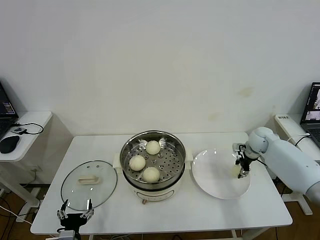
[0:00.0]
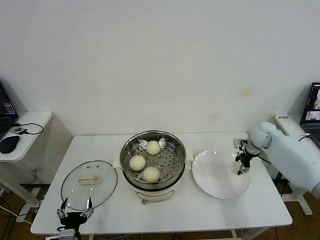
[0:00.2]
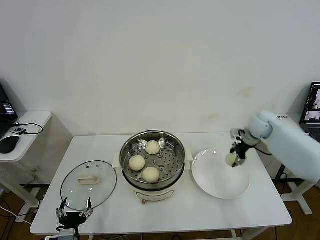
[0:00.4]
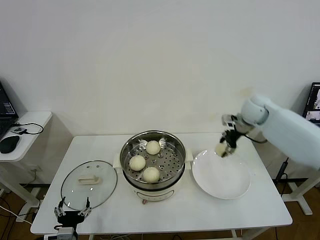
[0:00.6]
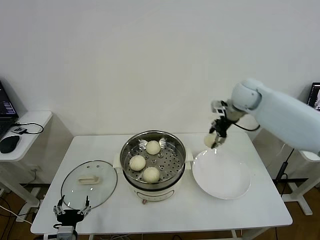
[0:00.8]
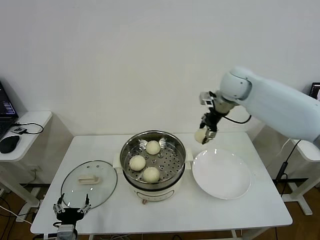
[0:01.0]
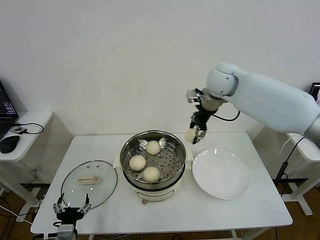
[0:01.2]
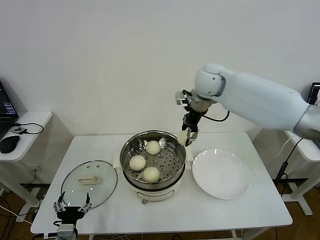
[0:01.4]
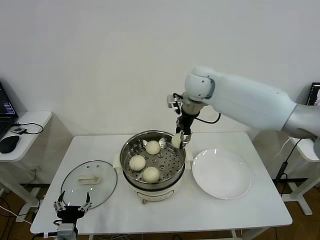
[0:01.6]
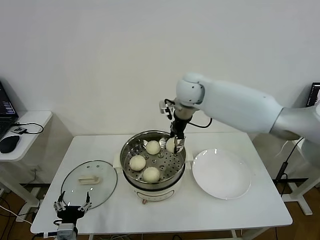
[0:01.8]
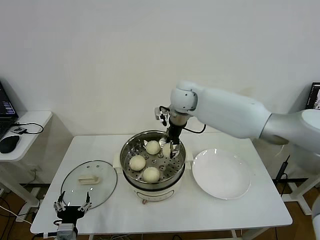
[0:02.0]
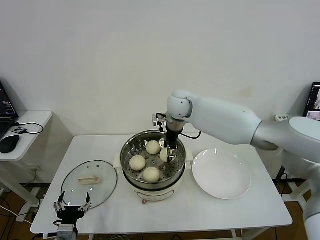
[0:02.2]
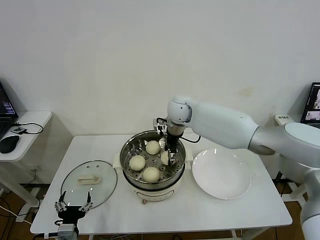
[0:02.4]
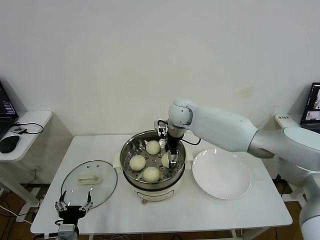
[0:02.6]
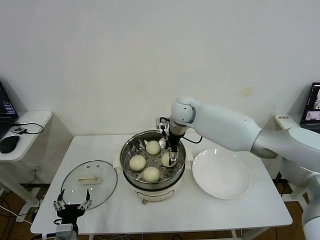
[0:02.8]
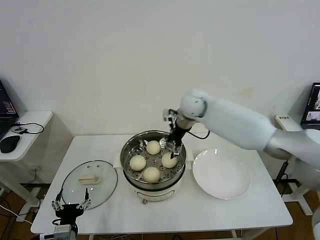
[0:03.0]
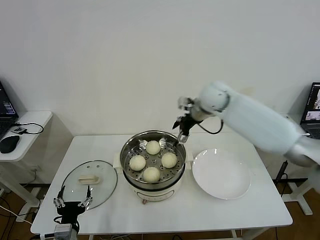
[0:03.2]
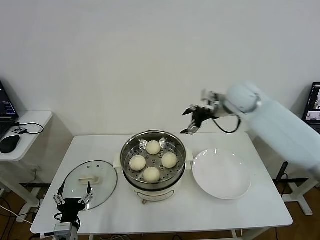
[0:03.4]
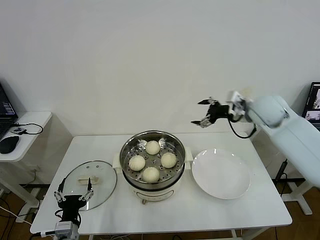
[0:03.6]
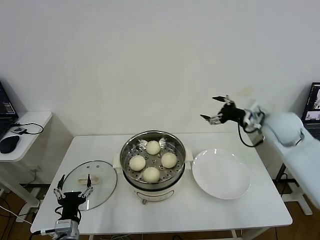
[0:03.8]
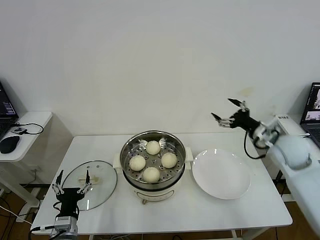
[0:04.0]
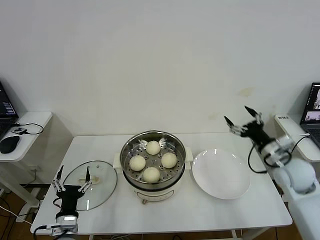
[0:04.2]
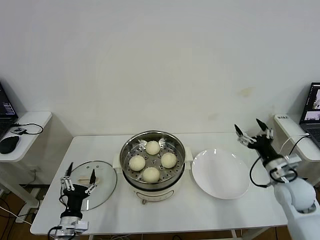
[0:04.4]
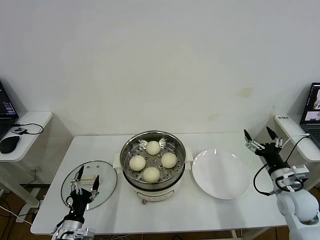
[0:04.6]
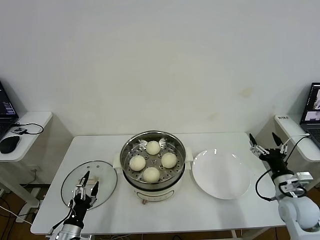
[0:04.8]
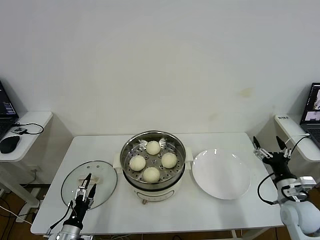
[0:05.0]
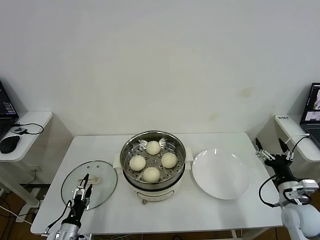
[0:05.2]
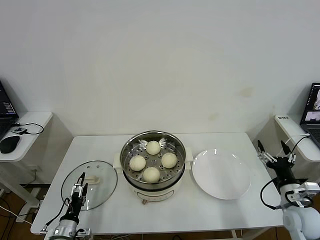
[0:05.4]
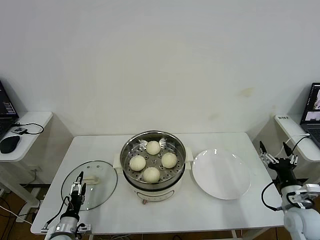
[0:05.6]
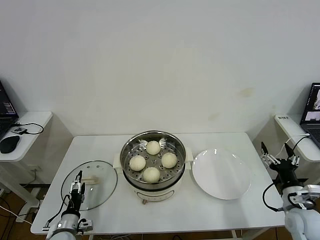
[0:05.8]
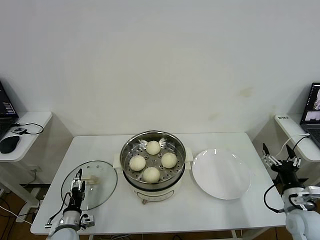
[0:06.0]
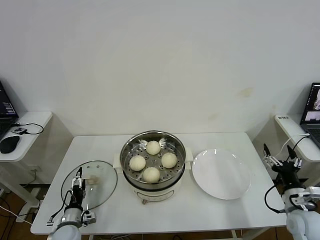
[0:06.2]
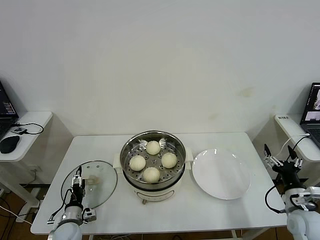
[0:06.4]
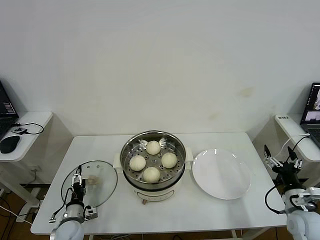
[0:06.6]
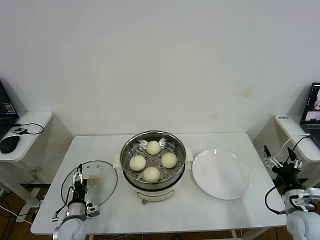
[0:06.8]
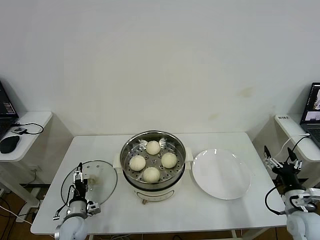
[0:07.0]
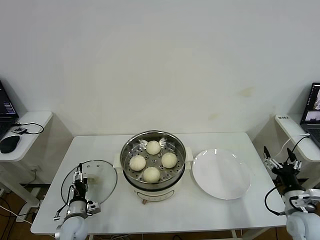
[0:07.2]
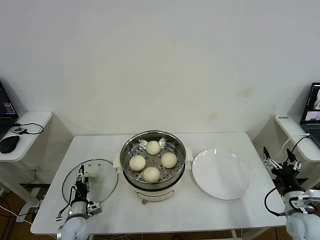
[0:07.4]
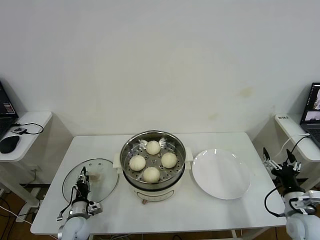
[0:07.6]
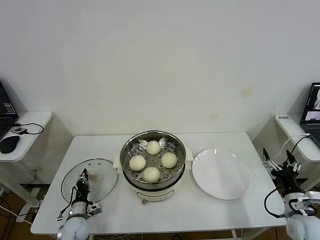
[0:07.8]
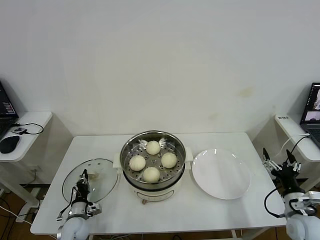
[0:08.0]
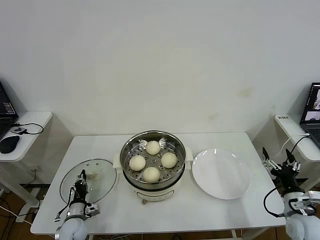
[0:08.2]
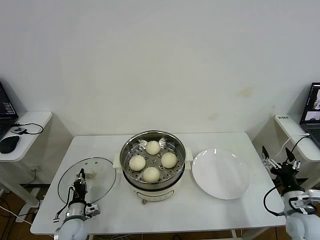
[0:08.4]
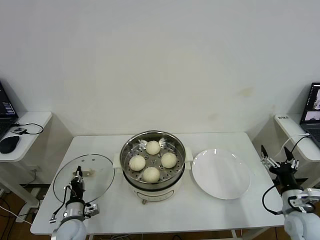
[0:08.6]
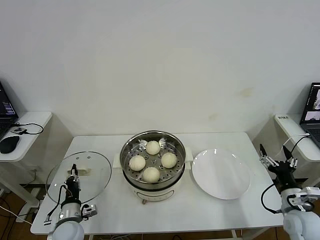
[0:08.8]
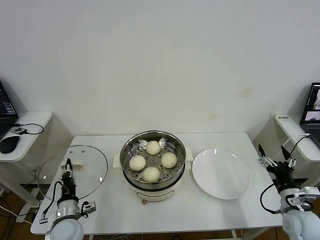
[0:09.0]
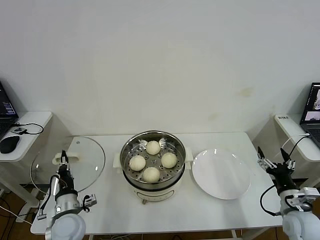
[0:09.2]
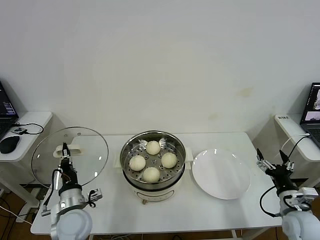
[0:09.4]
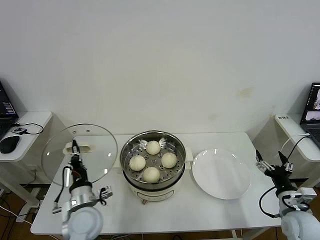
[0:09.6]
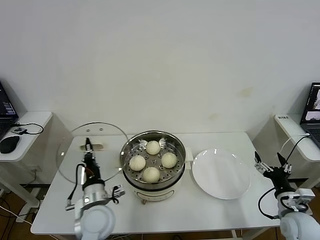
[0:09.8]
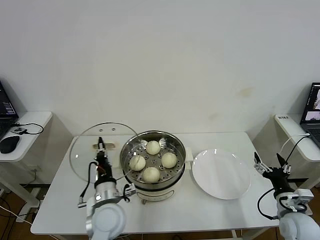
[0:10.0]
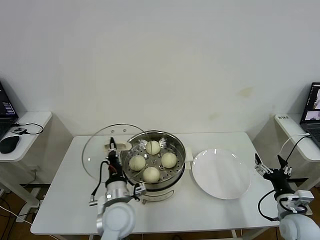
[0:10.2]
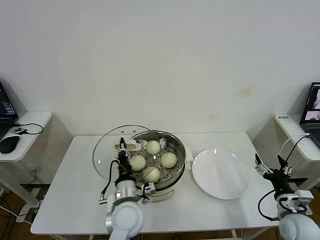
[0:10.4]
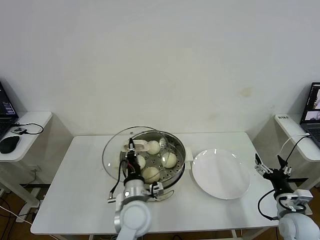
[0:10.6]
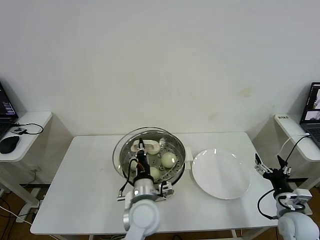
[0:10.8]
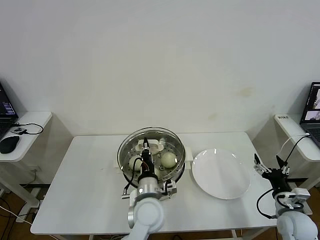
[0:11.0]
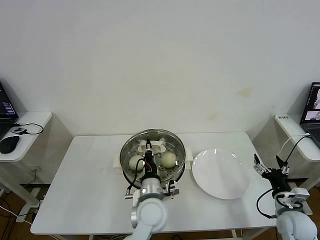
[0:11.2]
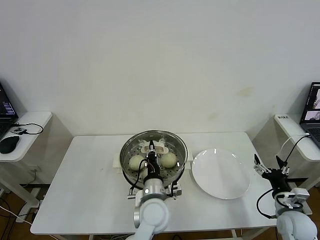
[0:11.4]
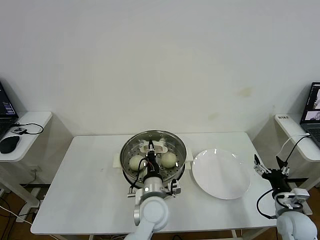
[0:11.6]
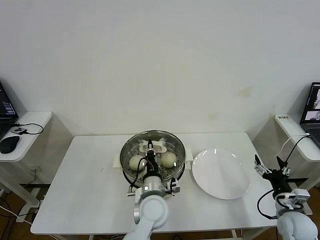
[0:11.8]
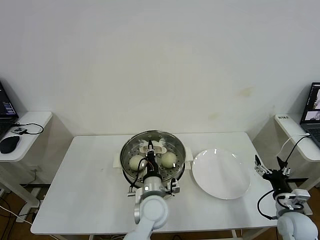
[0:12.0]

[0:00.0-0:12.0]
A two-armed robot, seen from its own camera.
Step, 0.2 to 2.8 s: Place the baozi on the steamer with right gripper.
Step, 3.0 to 8.0 s: Grasp the pot lid with left gripper.
0.0 to 1.6 s: The right gripper moves to the left and upward, roughly 35 cm.
1.6 to 3.0 s: The right gripper moves downward, about 5 cm, and opens its fingers.
3.0 to 4.4 s: The right gripper is displaced to the right, backward and downward by about 40 cm.
4.4 to 6.0 s: The right gripper heads backward, covering some 10 cm, while the left gripper travels downward by about 5 cm.
6.0 to 7.6 s: The left gripper moves approximately 5 cm, and closes its fingers.
7.6 to 9.0 s: The left gripper shifts approximately 10 cm upward, and closes.
9.0 to 10.4 s: The left gripper moves to the right and upward, about 20 cm.
10.4 to 12.0 s: The left gripper heads to the right, covering approximately 10 cm.

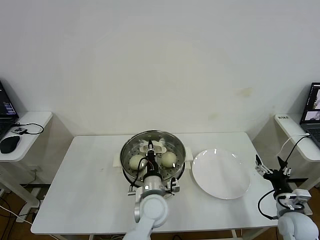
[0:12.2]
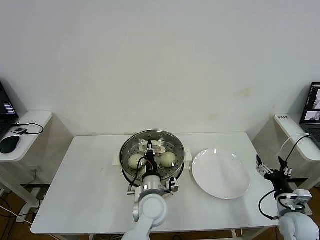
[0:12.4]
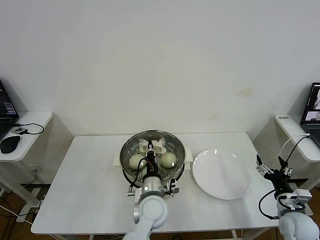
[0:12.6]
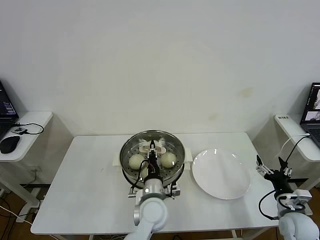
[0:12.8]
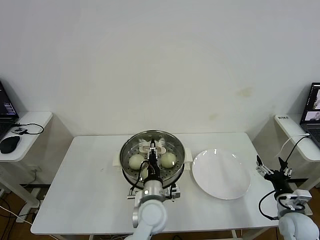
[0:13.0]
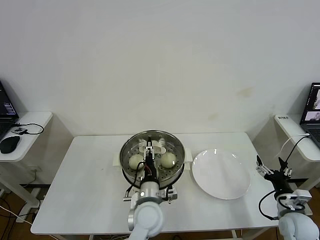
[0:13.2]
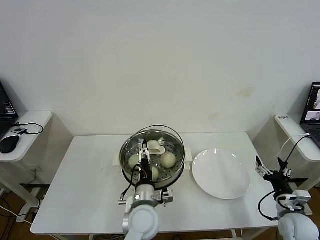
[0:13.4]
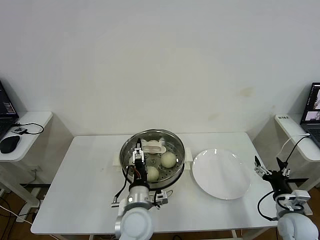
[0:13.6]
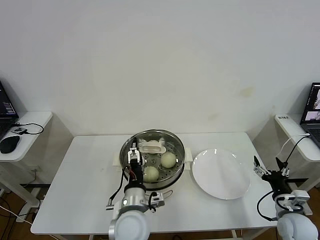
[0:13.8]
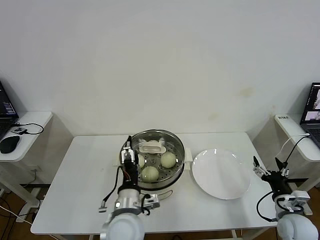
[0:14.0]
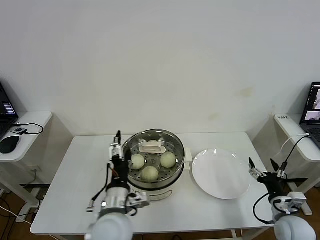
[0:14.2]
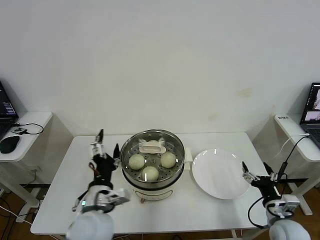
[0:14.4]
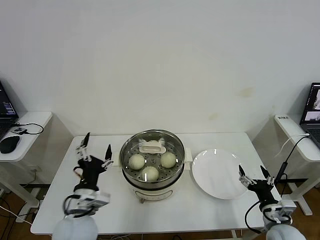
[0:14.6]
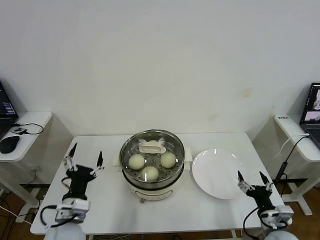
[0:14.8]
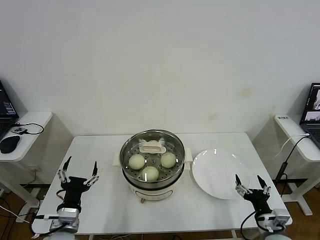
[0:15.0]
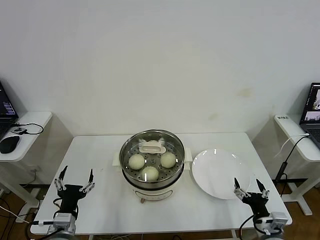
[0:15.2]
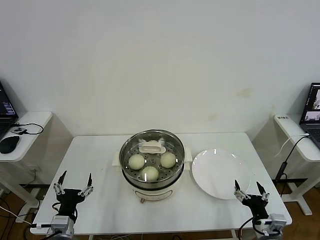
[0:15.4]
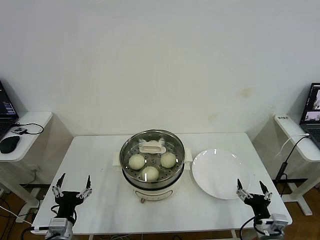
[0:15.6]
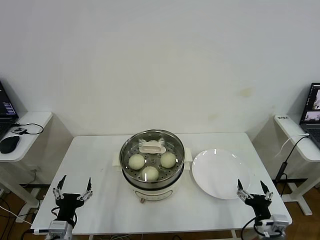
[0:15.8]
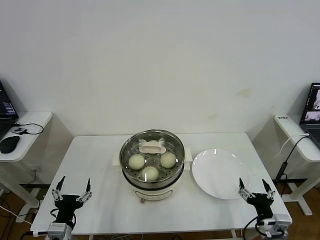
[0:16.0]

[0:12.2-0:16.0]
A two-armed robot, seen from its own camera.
12.2 to 13.4 s: The left gripper opens.
13.4 to 14.8 s: The right gripper moves to the left, roughly 5 cm, while the left gripper is displaced to the left by roughly 20 cm.
14.8 to 16.0 s: The left gripper is displaced downward, to the left and backward by roughly 10 cm.

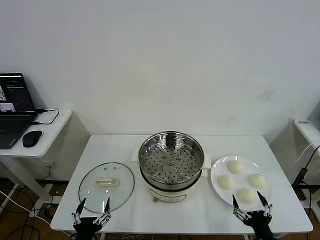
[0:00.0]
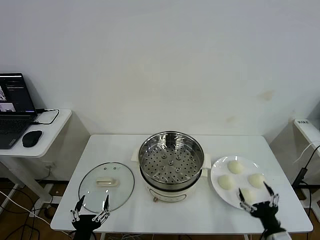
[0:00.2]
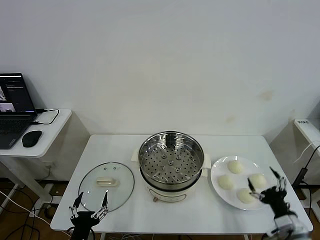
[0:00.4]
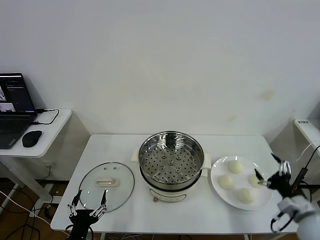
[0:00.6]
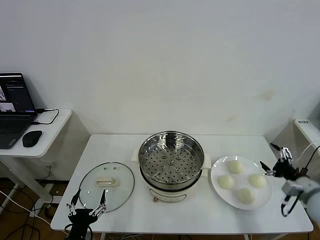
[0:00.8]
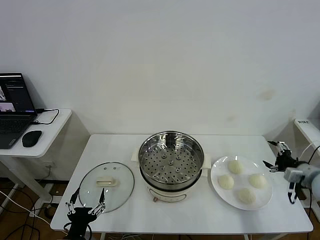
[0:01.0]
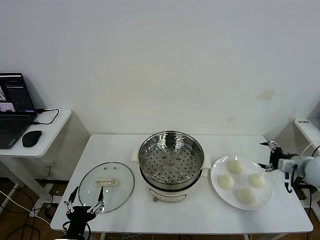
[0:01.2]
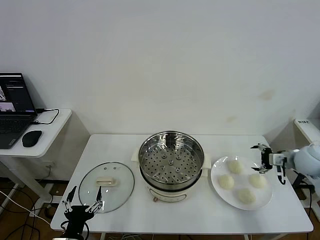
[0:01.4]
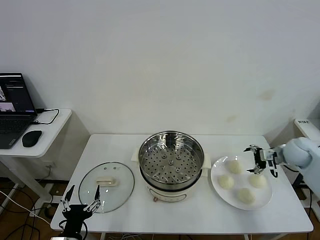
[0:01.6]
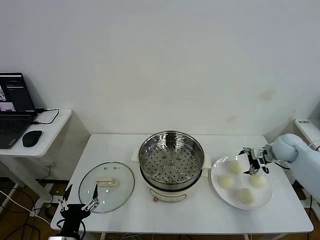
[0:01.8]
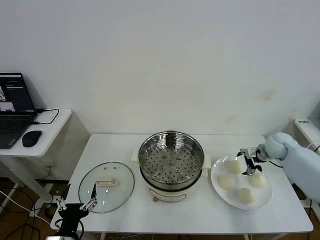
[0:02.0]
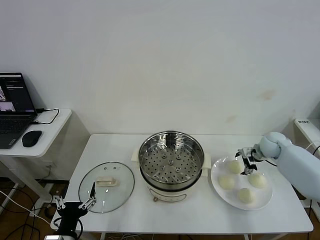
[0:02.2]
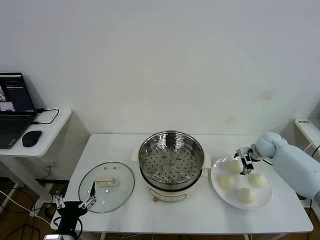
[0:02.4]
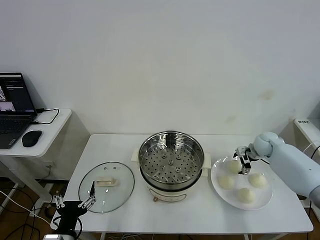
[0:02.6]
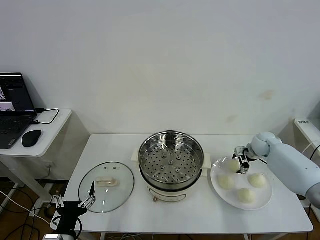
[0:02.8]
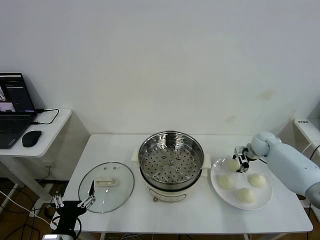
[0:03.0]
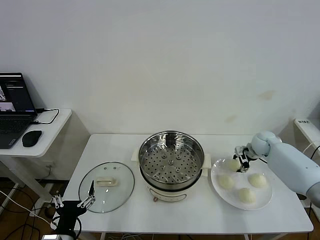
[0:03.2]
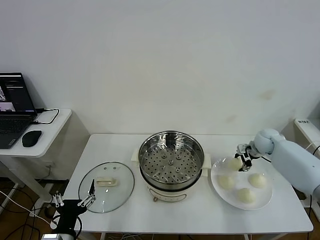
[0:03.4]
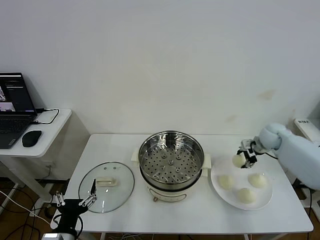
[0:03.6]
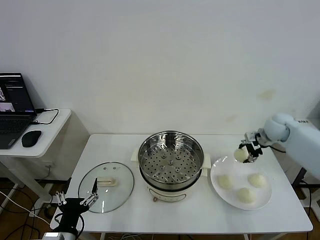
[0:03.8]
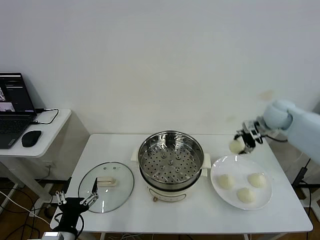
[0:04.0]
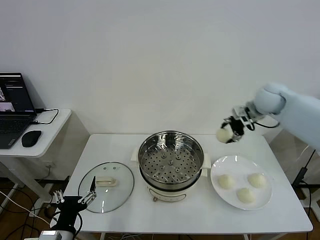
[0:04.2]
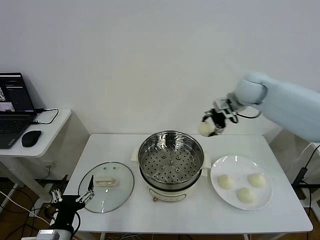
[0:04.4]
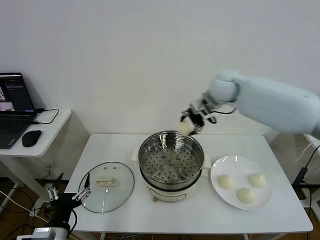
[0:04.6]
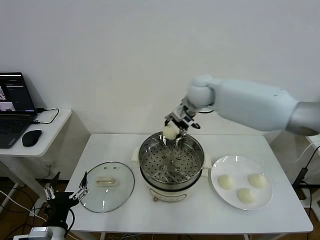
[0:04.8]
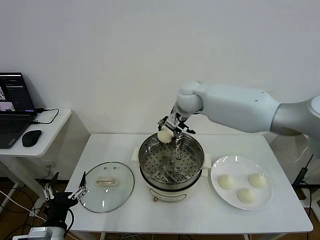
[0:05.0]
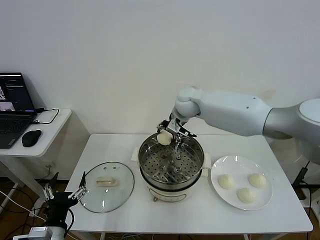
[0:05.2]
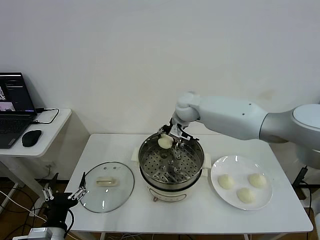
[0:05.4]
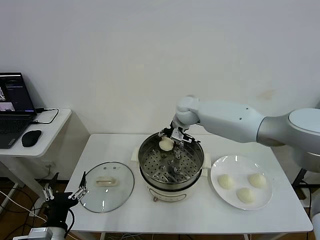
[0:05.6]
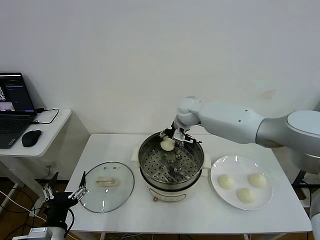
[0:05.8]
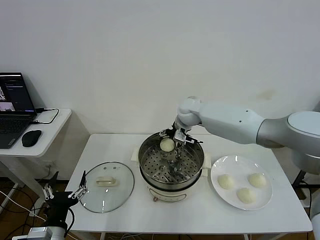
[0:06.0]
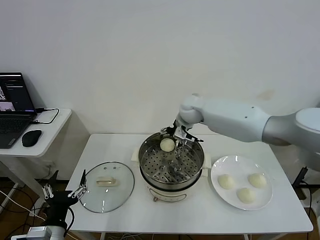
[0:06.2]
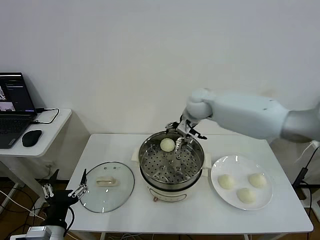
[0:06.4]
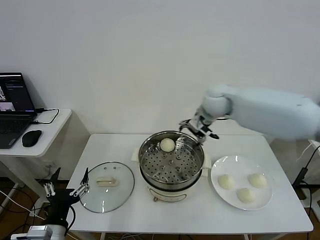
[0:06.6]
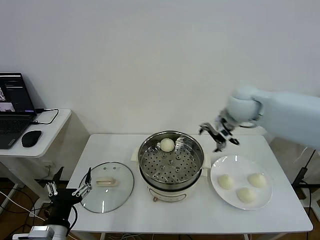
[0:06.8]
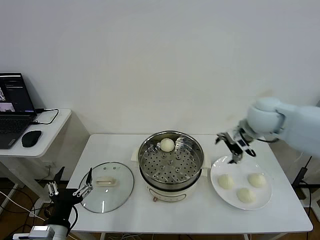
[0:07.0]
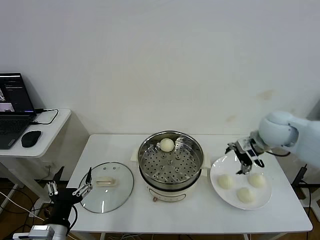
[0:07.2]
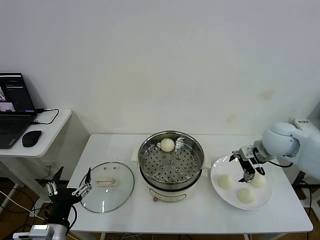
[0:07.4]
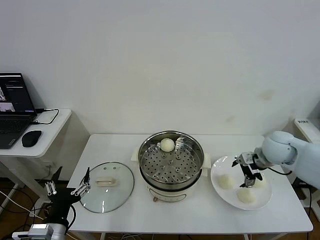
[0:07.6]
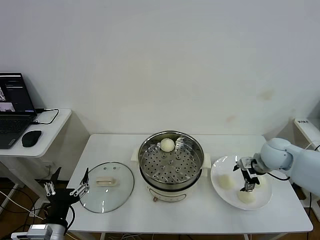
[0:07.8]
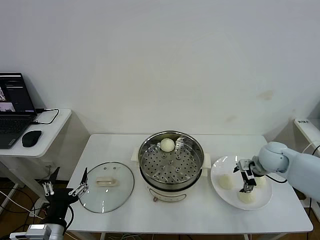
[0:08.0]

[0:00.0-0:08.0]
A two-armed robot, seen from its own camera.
Step, 0.0 to 2.8 s: Grasp the baozi in the plate with right gripper.
Step, 3.0 to 5.8 s: Place the baozi on the steamer with right gripper.
1.6 to 3.2 s: The right gripper shifts about 5 cm forward, and closes.
3.2 to 4.8 s: The right gripper shifts about 35 cm to the left and upward.
4.8 to 6.4 s: The right gripper shifts some 5 cm to the right, goes downward and returns, about 10 cm each way, and opens its fingers.
6.4 to 8.0 s: The right gripper travels to the right, downward and backward by some 30 cm.
